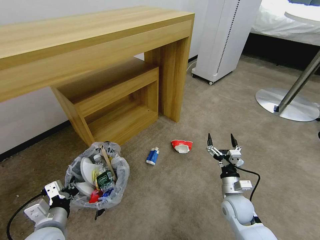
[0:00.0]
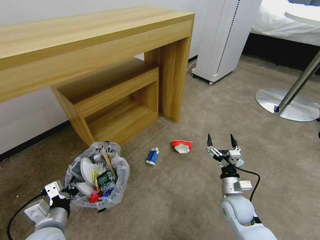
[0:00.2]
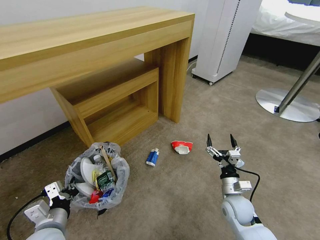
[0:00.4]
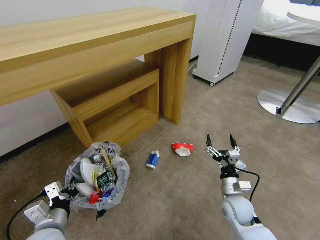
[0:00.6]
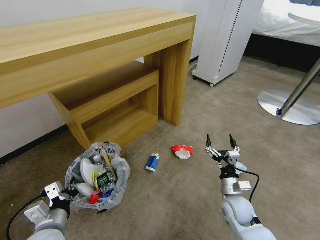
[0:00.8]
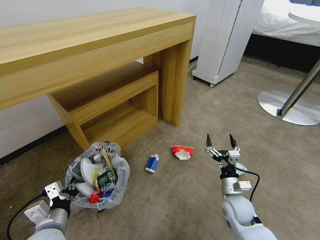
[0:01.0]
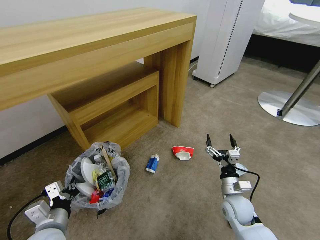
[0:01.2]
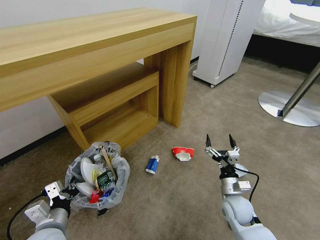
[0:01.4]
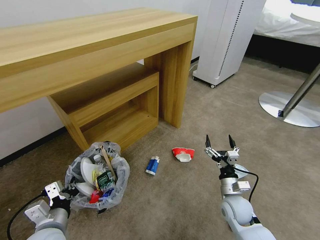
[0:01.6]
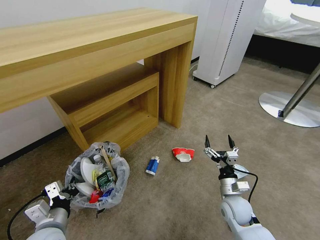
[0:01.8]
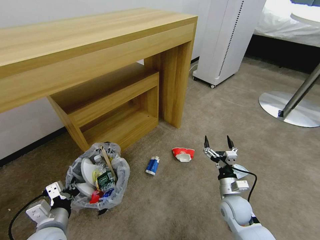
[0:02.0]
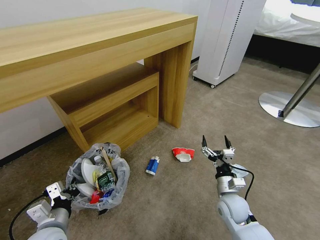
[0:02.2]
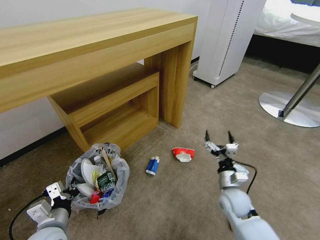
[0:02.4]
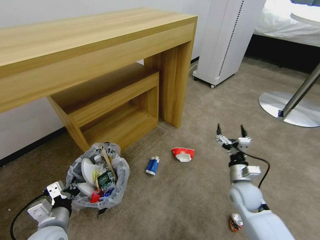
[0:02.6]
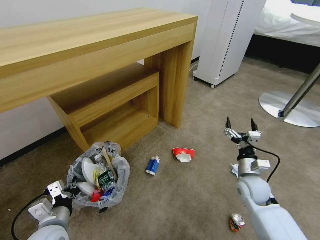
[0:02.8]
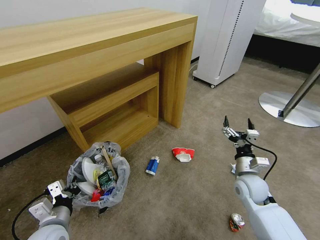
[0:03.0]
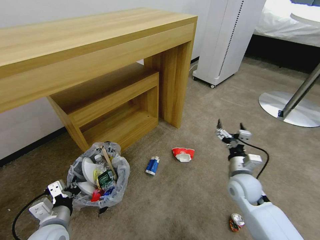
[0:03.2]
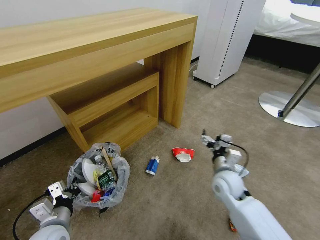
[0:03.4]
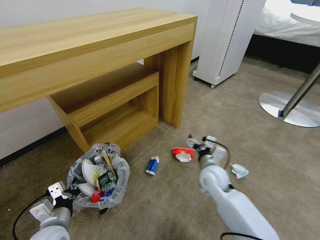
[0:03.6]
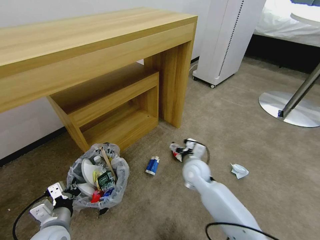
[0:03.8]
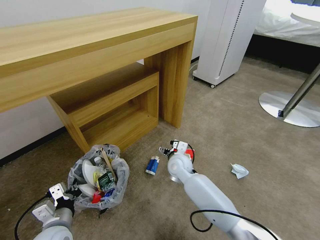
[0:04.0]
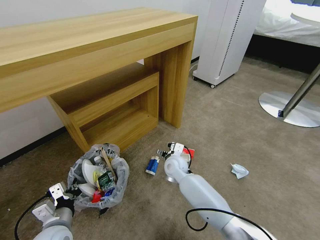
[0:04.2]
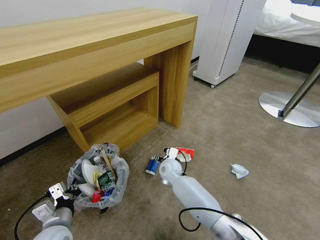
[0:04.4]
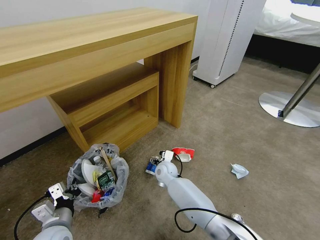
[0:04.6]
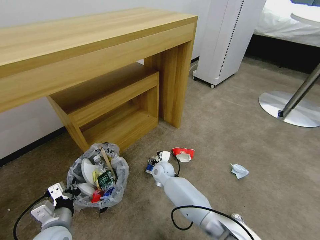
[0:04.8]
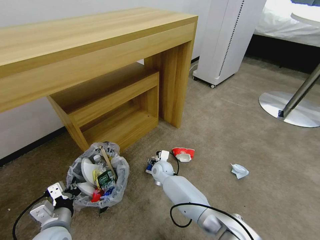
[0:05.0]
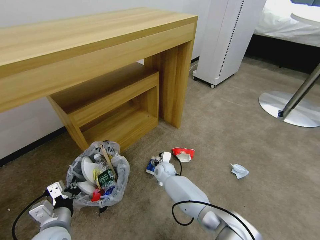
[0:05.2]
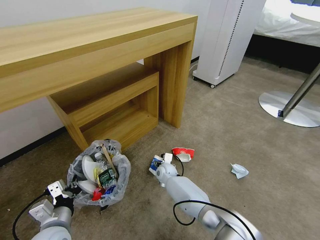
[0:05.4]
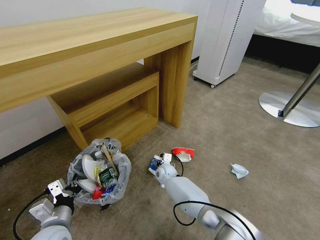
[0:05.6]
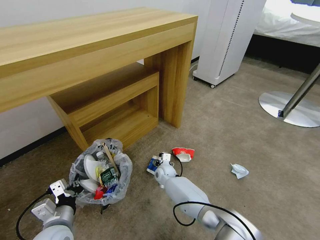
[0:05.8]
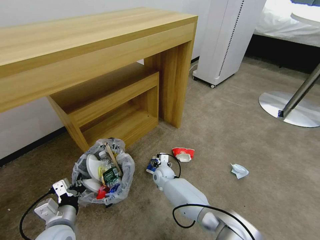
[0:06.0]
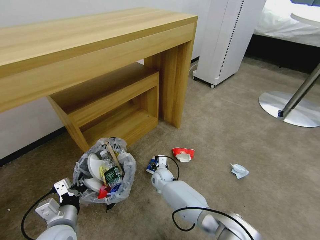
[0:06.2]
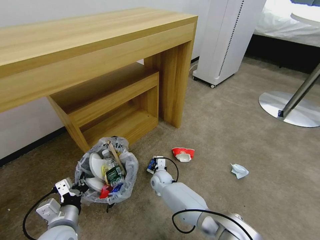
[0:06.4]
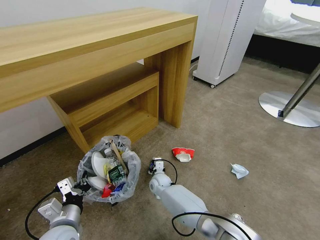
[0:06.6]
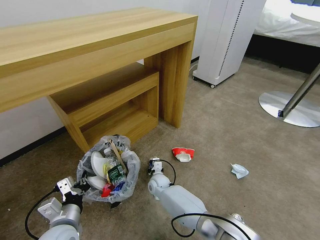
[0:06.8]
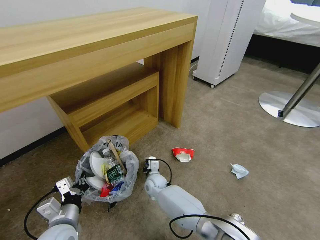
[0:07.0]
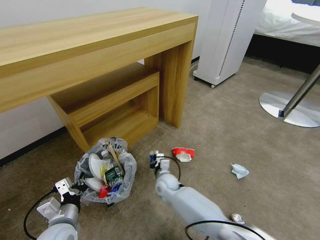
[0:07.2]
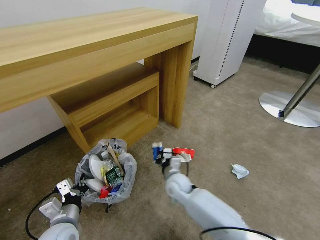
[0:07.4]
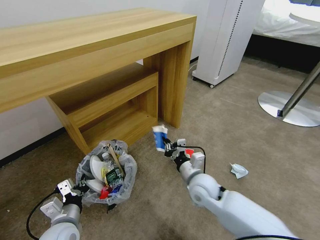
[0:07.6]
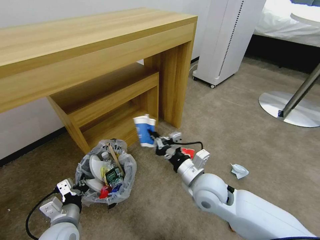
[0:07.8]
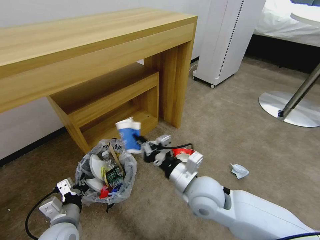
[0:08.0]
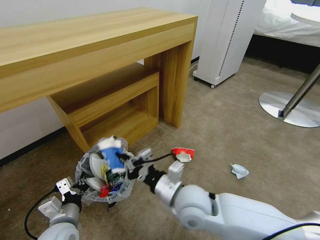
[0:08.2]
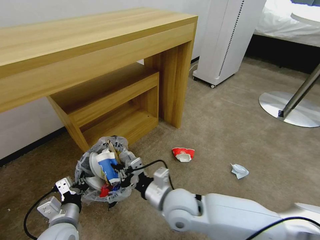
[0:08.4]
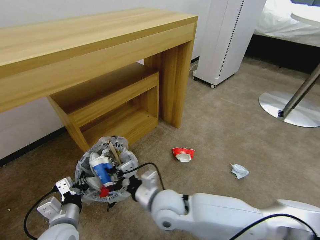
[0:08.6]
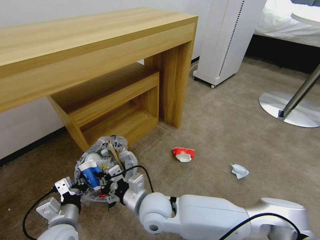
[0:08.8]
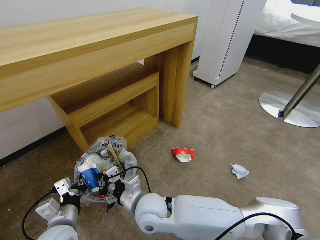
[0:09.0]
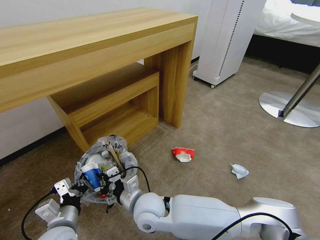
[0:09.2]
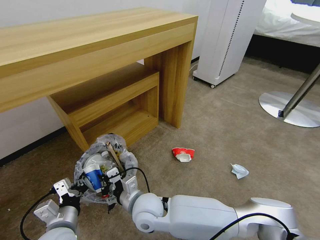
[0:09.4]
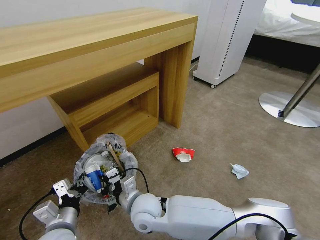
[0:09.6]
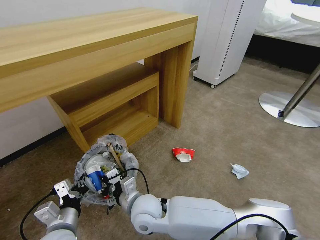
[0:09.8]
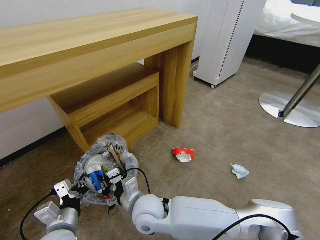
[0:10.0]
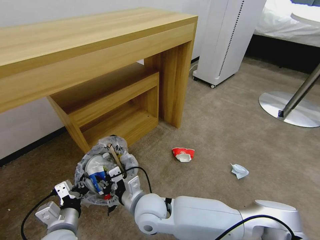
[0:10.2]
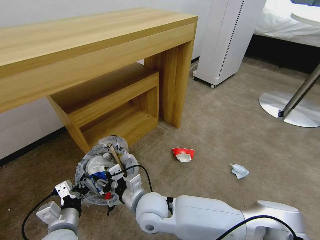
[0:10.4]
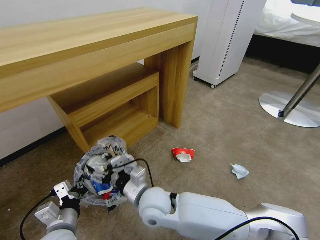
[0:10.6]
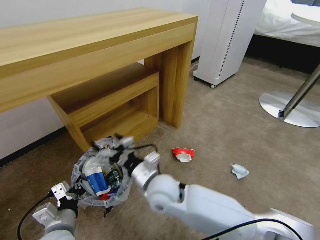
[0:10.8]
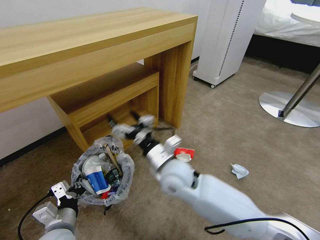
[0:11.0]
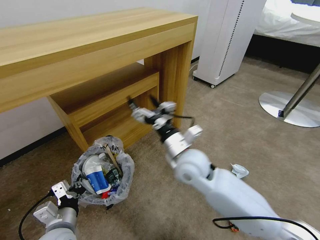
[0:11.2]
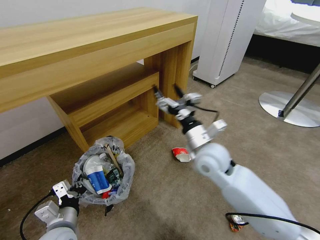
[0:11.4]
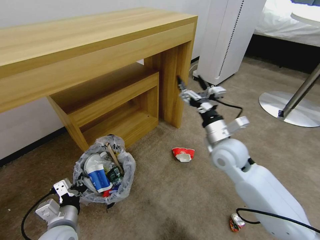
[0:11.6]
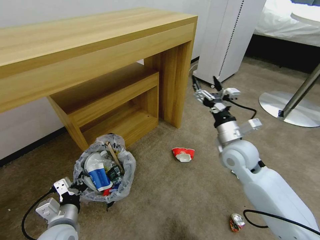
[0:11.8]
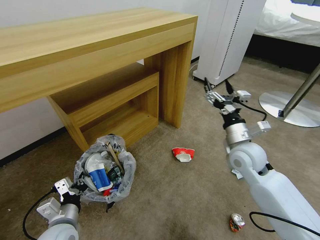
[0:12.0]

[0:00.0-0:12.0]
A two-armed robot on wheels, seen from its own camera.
Task of the whole recording: Pick up the trash bin and place the garbage on the floor into it.
0:00.0 to 0:01.6: Both grippers stay put.
0:01.6 to 0:03.0: The right gripper heads upward, covering about 5 cm.
0:03.0 to 0:04.4: The right gripper moves to the left and forward, approximately 30 cm.
0:04.4 to 0:06.0: The right gripper goes some 10 cm downward.
0:06.0 to 0:07.6: The right gripper heads upward, backward and to the right, covering some 25 cm, and closes its fingers.
0:07.6 to 0:09.0: The right gripper is displaced to the left and backward by some 15 cm.
0:09.0 to 0:10.4: The right gripper opens its fingers.
0:10.4 to 0:12.0: The right gripper travels to the right and forward by about 30 cm, and opens up.

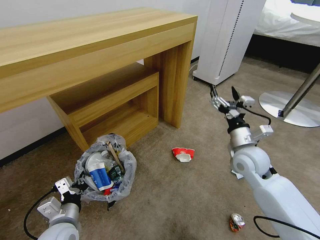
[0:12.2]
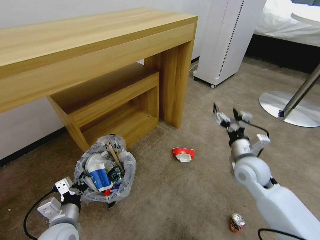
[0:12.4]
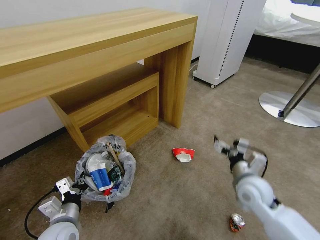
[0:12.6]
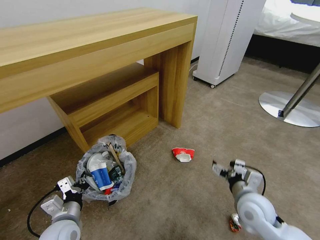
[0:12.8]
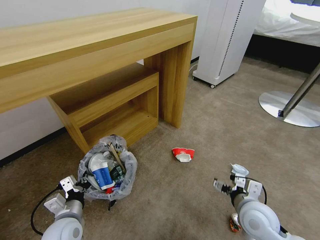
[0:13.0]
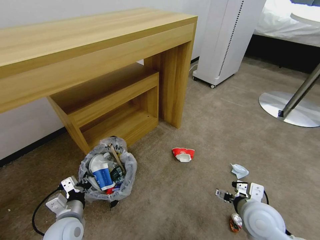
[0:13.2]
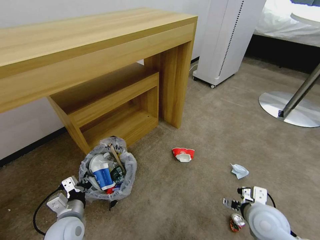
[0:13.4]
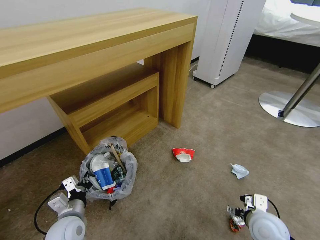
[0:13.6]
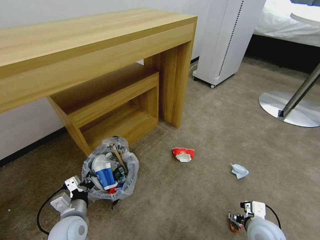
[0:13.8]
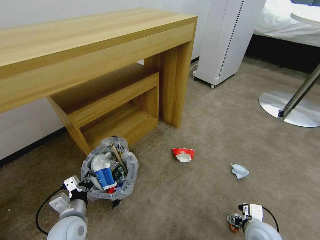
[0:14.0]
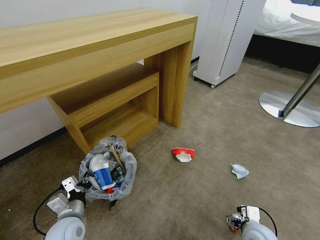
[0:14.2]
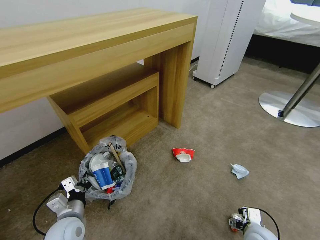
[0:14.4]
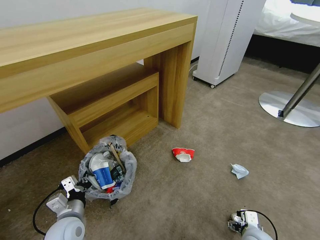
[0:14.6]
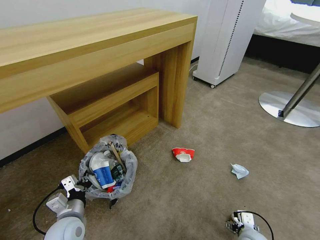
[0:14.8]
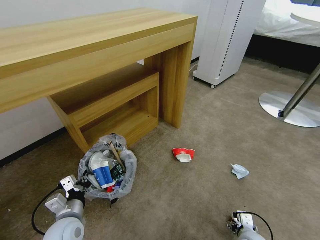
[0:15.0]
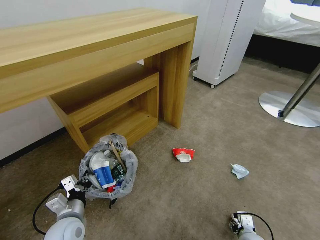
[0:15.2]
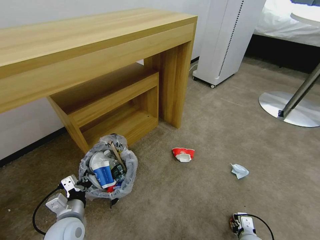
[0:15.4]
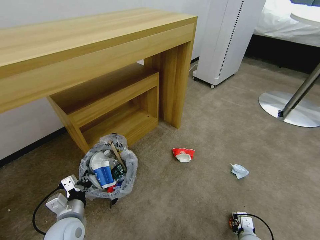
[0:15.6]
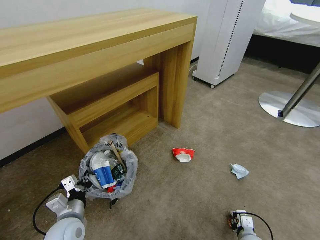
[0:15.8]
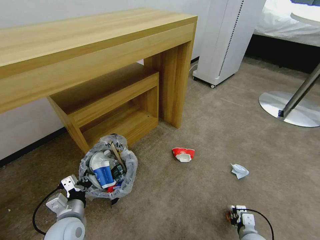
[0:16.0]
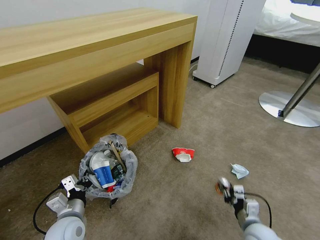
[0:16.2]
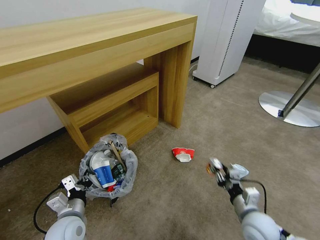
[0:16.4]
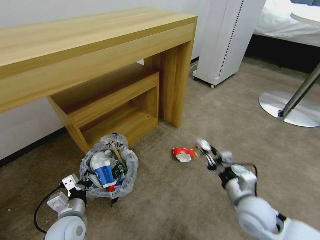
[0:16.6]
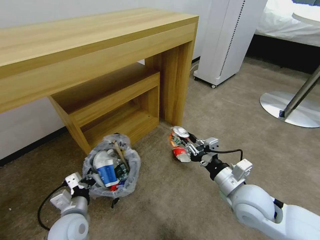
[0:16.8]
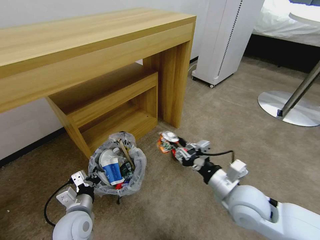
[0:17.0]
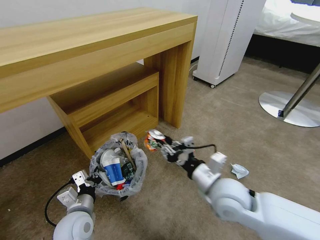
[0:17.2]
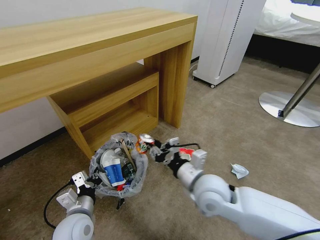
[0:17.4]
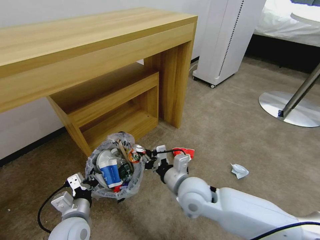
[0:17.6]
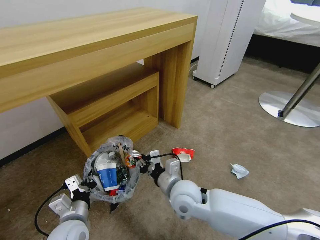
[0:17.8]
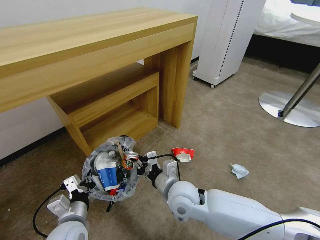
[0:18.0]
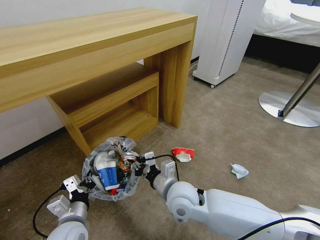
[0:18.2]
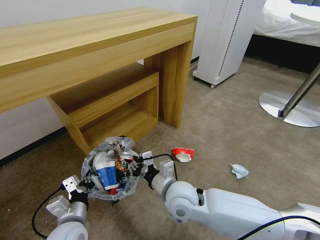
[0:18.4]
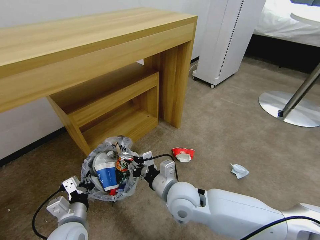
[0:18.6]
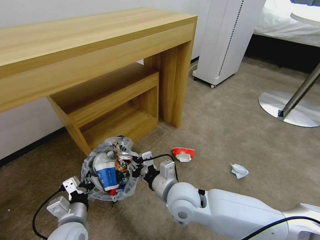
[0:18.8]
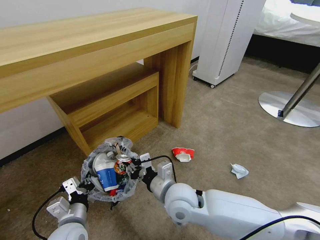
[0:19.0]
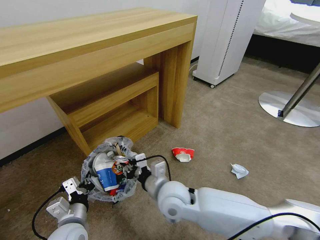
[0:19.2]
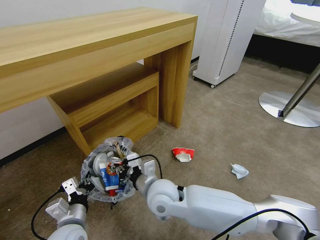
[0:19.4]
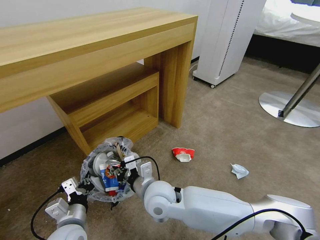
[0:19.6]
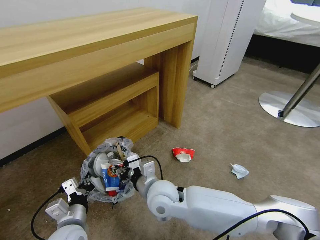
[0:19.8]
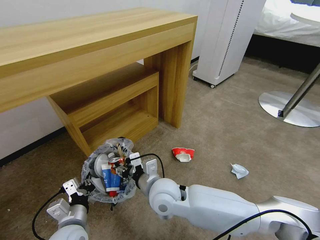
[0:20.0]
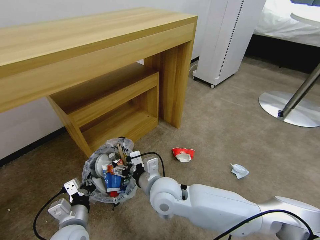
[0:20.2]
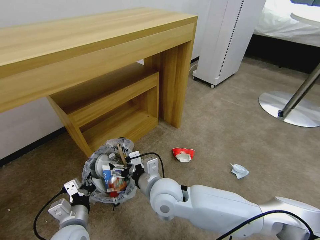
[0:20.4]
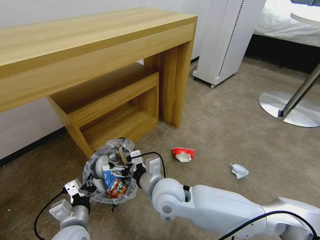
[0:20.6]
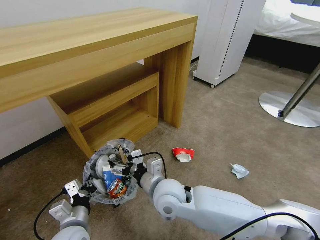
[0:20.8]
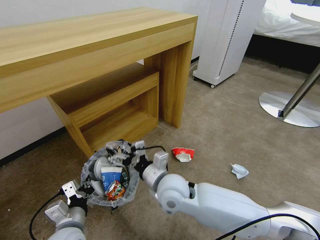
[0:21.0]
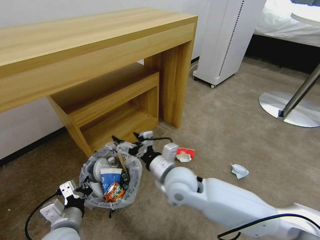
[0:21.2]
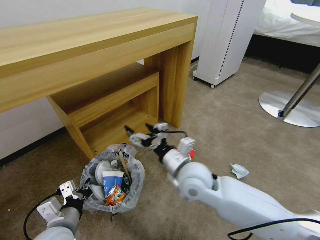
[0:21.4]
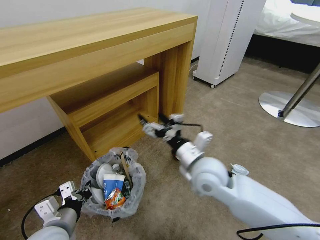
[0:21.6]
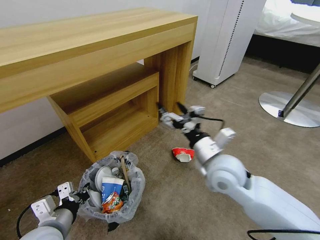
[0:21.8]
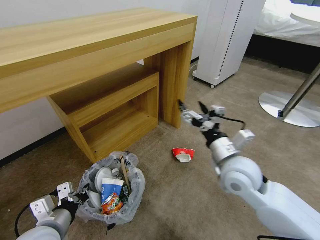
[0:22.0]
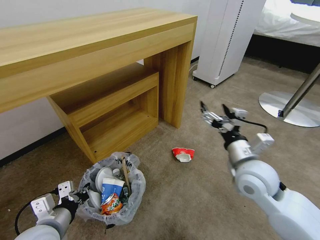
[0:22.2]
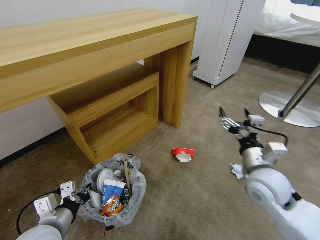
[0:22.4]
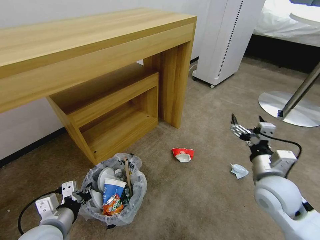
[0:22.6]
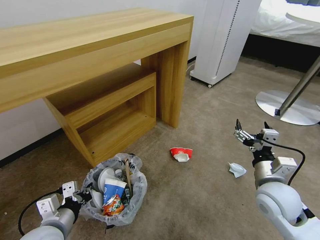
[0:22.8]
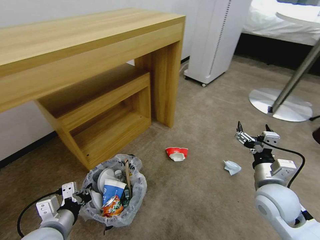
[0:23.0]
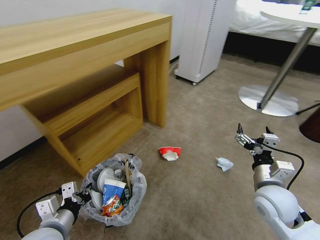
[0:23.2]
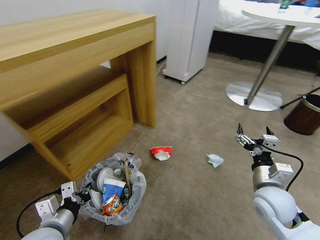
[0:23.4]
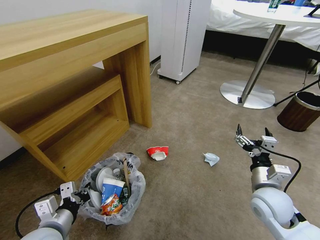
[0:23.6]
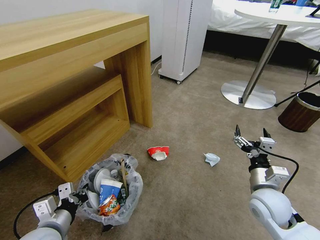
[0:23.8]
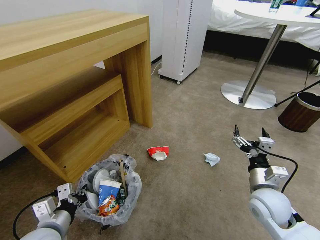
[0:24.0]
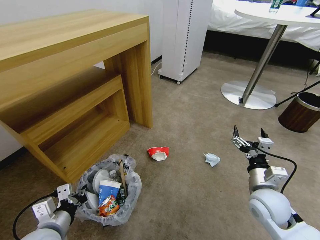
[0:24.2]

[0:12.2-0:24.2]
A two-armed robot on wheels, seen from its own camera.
Task of the whole recording: Pick up the trash bin and place the garbage on the floor into it.
0:12.2 to 0:13.8: The right gripper is displaced backward and downward by approximately 20 cm.
0:13.8 to 0:15.2: The right gripper heads downward, covering roughly 10 cm.
0:15.2 to 0:16.6: The right gripper moves upward, some 20 cm, and closes.
0:16.6 to 0:18.2: The right gripper travels to the left by roughly 20 cm.
0:18.2 to 0:19.8: The right gripper moves to the left, some 5 cm.
0:19.8 to 0:21.2: The right gripper moves about 5 cm, and opens up.
0:21.2 to 0:22.6: The right gripper moves to the right, roughly 25 cm.
0:22.6 to 0:24.2: The right gripper is displaced downward by roughly 5 cm.
